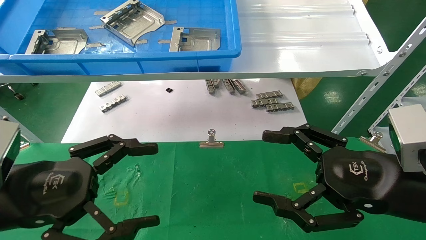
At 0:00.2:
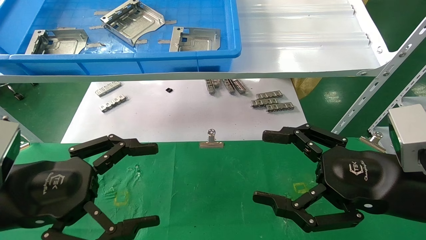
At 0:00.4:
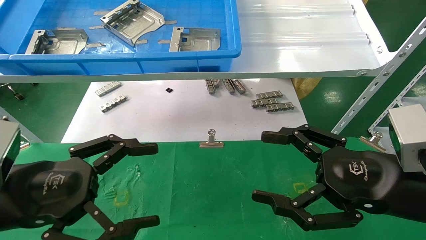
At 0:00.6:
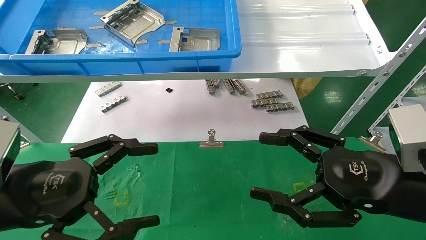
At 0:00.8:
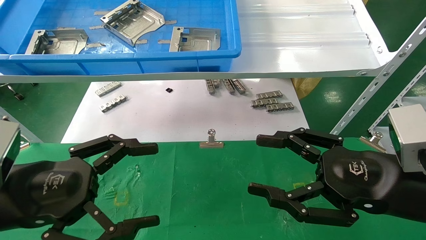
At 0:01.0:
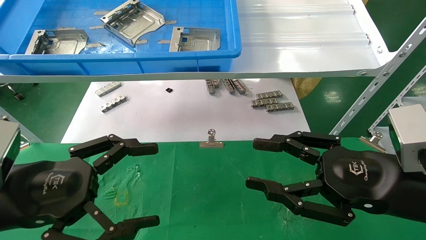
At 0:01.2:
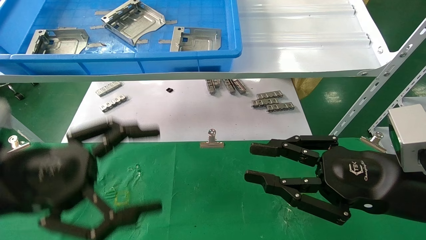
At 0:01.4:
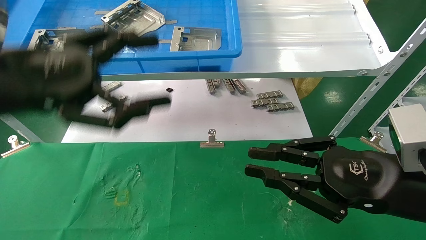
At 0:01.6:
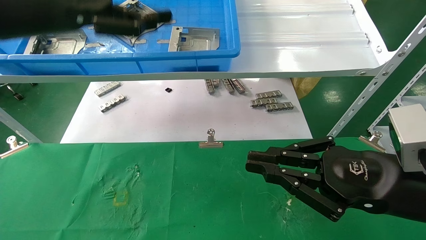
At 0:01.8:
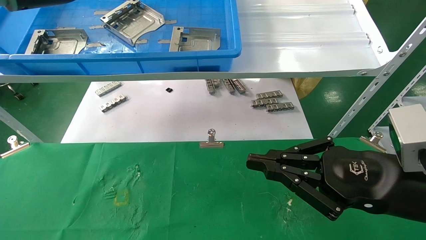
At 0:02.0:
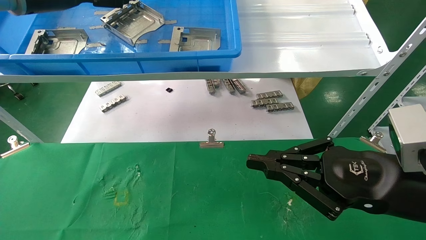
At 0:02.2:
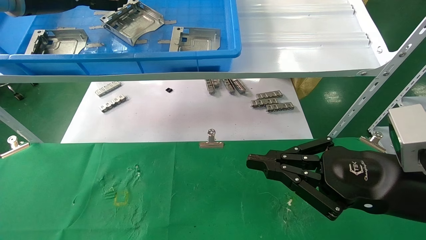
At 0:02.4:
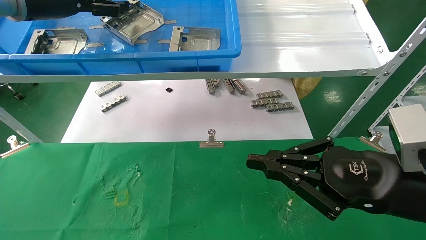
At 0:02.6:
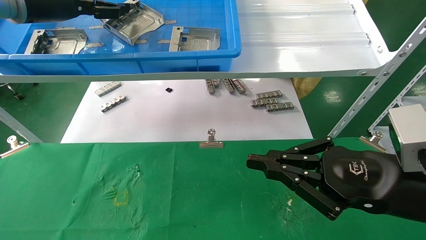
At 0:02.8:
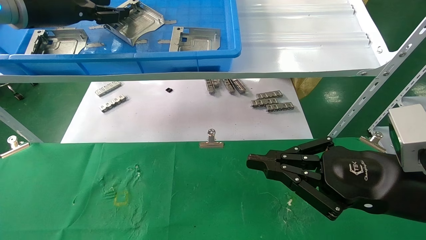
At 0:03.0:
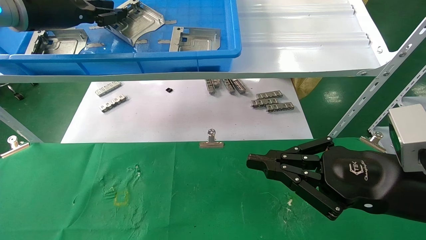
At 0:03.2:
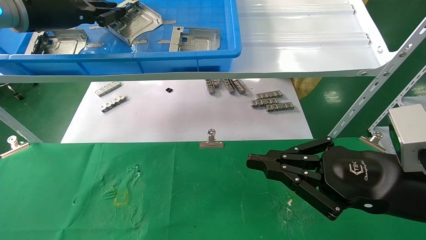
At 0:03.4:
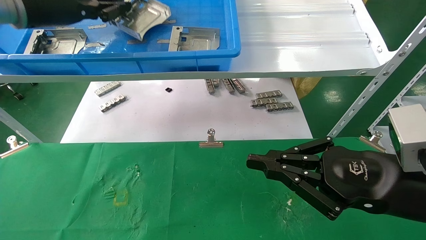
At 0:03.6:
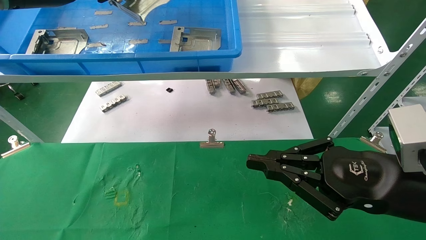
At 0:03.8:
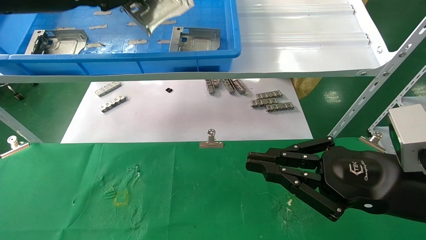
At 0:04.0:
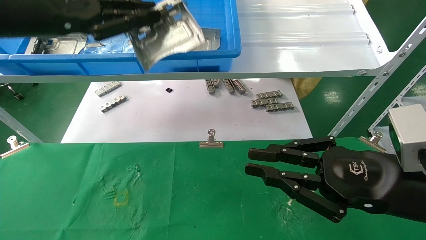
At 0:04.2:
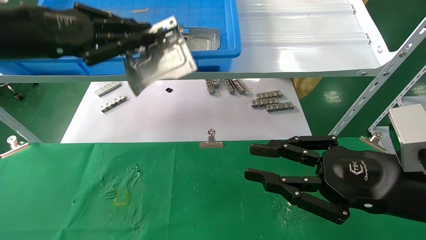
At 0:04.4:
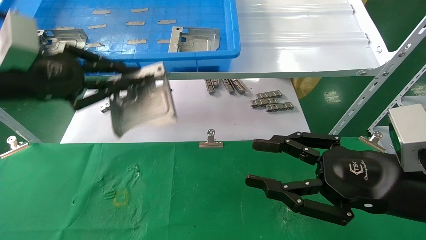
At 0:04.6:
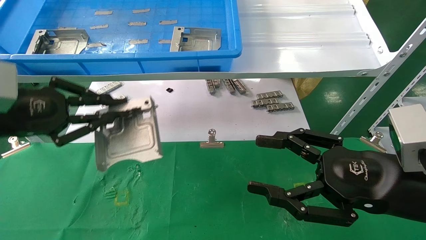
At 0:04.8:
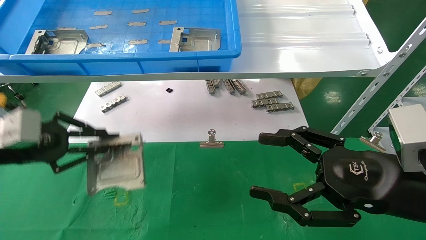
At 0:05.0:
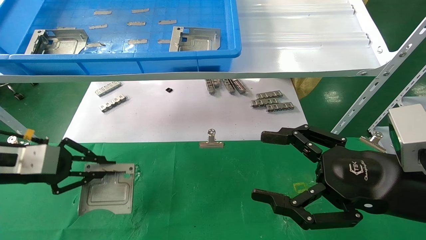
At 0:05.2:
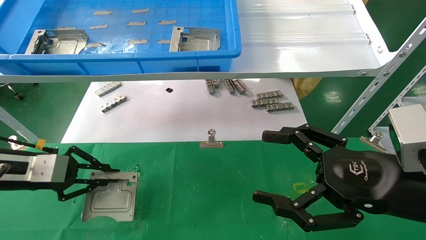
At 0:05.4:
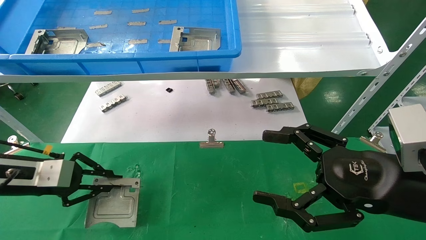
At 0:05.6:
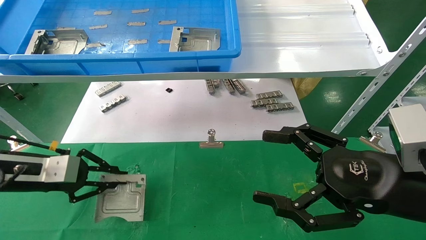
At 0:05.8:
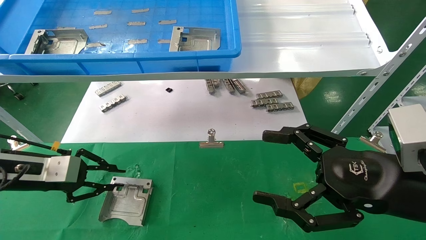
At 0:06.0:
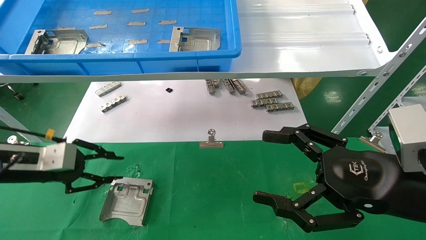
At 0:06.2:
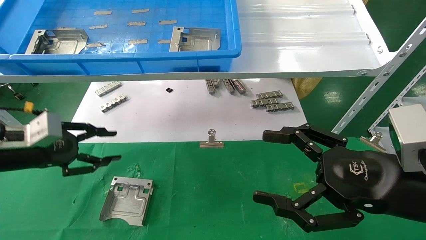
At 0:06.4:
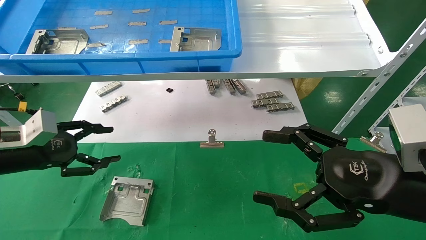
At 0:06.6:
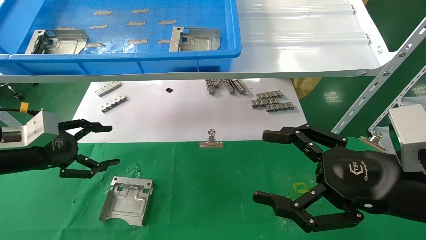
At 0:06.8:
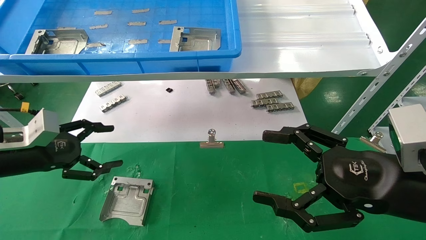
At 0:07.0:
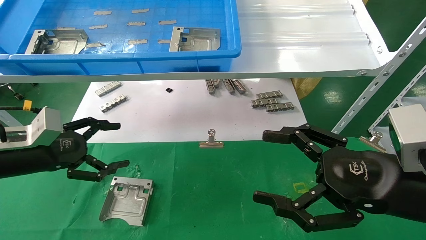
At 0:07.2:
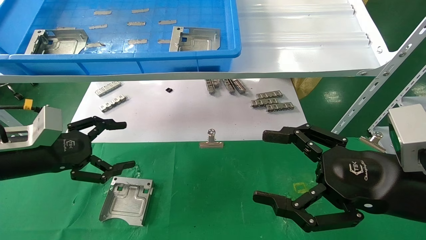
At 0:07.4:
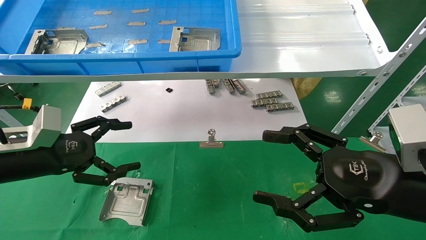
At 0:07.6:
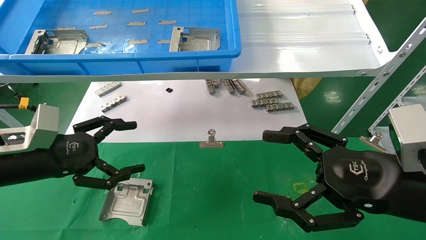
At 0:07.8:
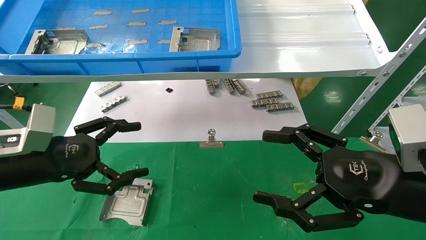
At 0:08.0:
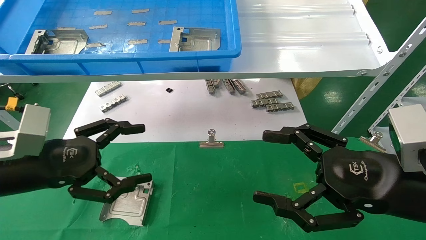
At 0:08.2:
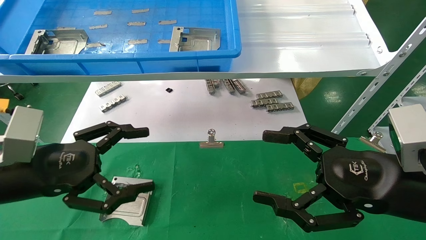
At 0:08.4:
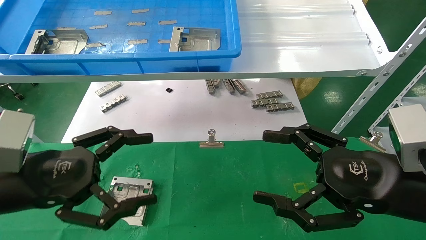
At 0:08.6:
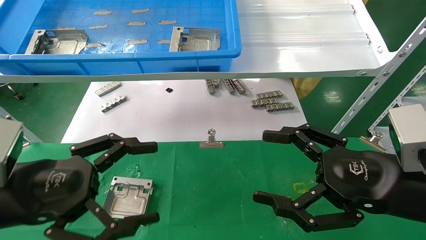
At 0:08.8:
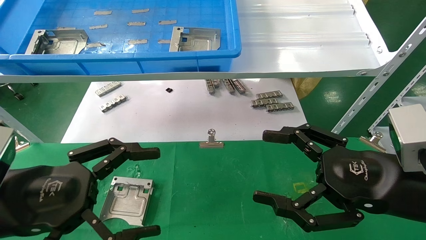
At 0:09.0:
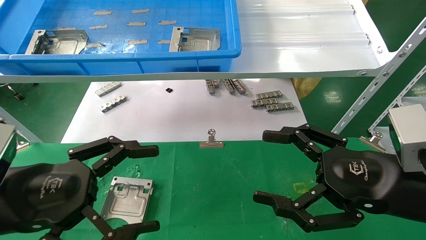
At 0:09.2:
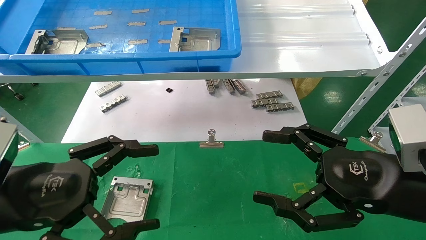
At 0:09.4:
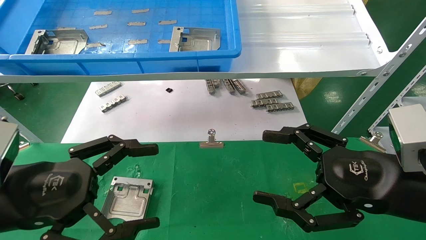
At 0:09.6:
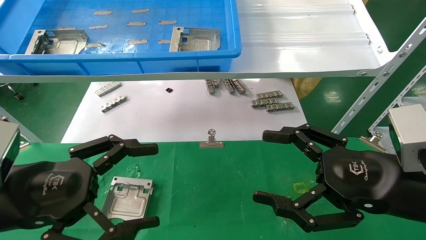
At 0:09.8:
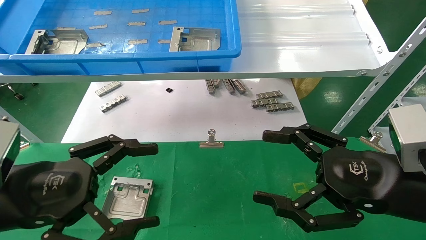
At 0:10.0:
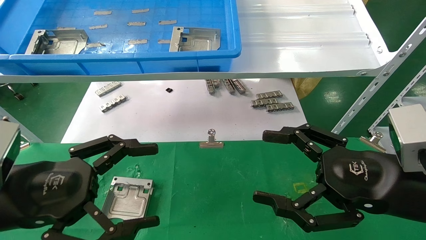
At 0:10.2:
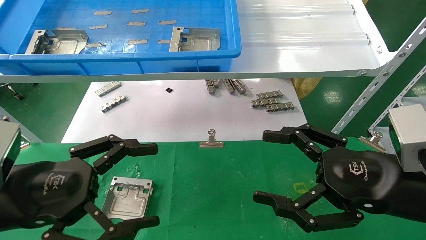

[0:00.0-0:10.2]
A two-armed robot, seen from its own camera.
Task of the whole recording: use the mechanical arm to pick up the parts and place them on the table.
Step, 0:01.4 to 0:03.2: Pick up the hard drive bracket from the feeding area.
Step, 0:03.4 to 0:05.8: Place the hard drive bracket into the box.
0:00.0 to 0:01.4: The left gripper moves upward and forward, some 15 cm; the right gripper closes.
0:01.4 to 0:03.0: The left gripper travels forward and upward by approximately 20 cm, and closes.
0:03.0 to 0:04.4: The right gripper opens its fingers; the left gripper goes about 15 cm backward and downward, and closes.
0:04.4 to 0:05.8: The right gripper opens up; the left gripper travels downward by approximately 15 cm.
0:05.8 to 0:07.2: The left gripper opens its fingers.
0:07.2 to 0:08.8: The left gripper travels backward and to the right by approximately 15 cm.
0:08.8 to 0:10.2: Neither gripper changes place.

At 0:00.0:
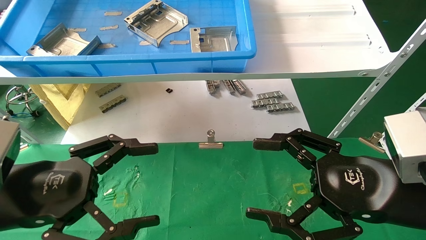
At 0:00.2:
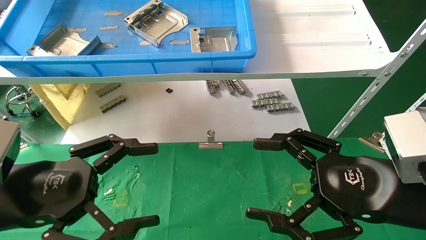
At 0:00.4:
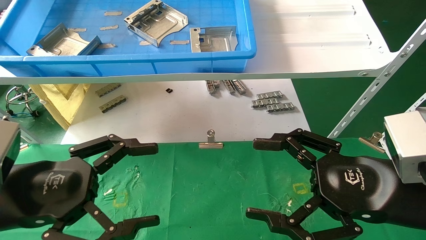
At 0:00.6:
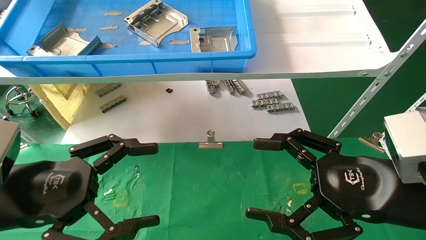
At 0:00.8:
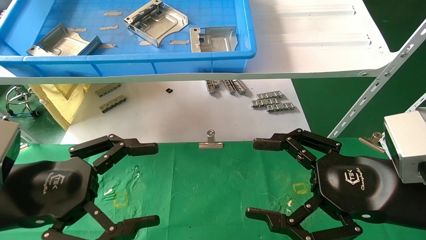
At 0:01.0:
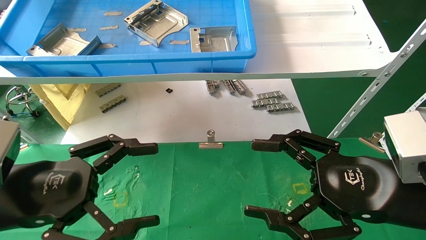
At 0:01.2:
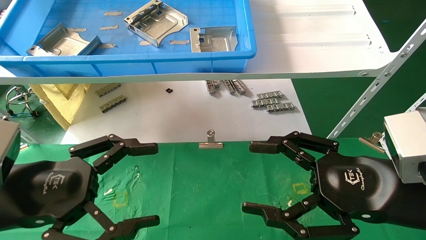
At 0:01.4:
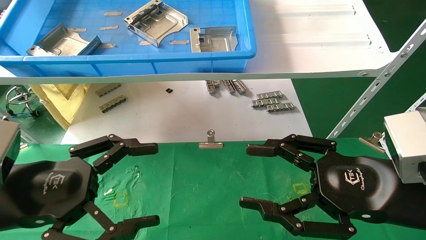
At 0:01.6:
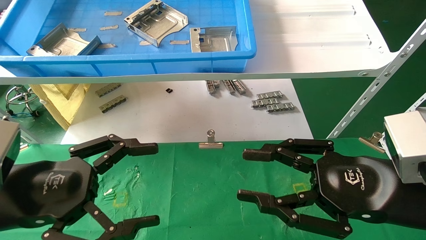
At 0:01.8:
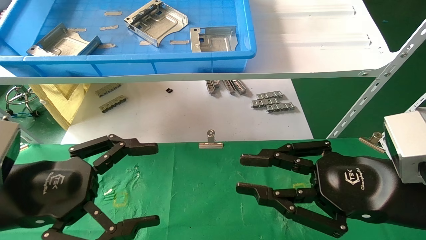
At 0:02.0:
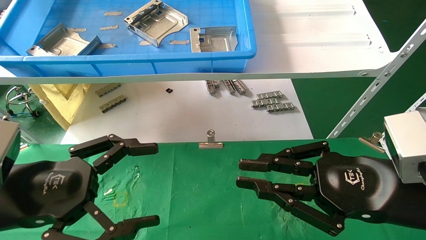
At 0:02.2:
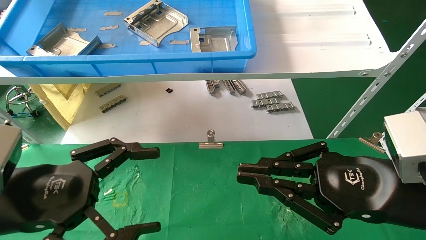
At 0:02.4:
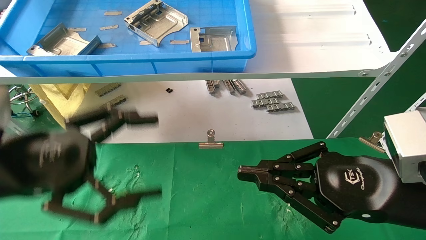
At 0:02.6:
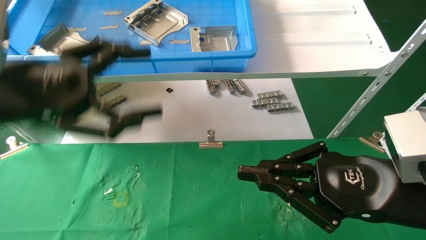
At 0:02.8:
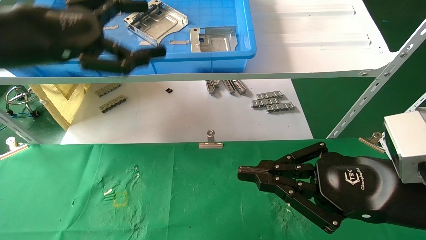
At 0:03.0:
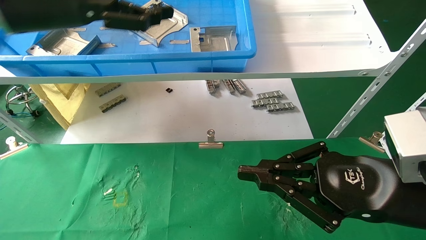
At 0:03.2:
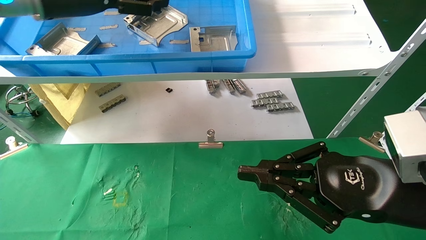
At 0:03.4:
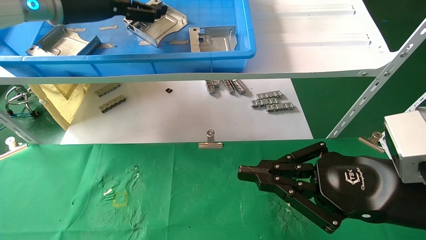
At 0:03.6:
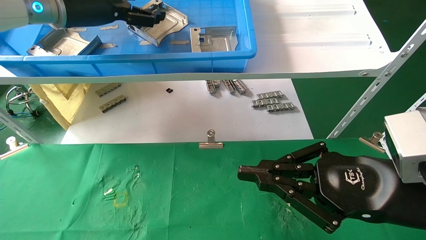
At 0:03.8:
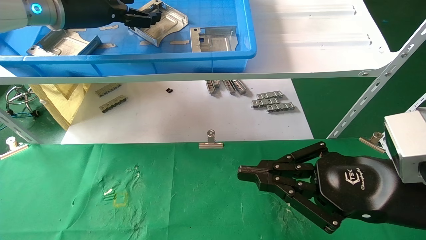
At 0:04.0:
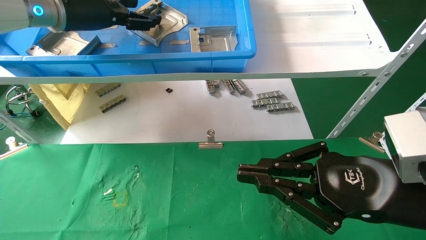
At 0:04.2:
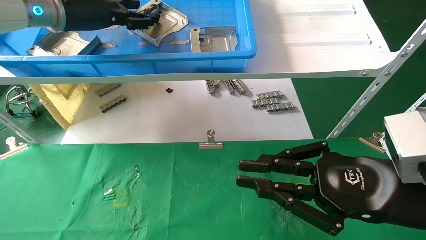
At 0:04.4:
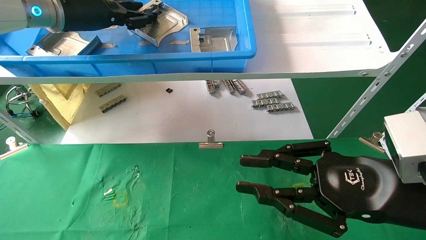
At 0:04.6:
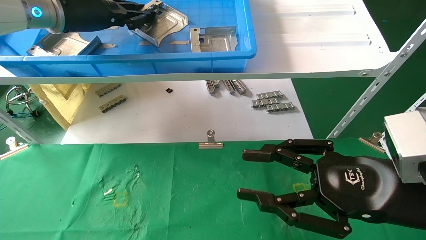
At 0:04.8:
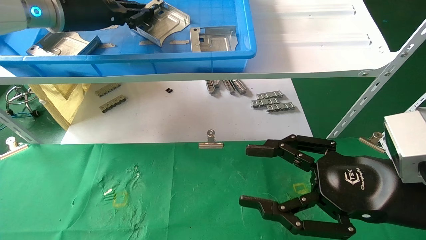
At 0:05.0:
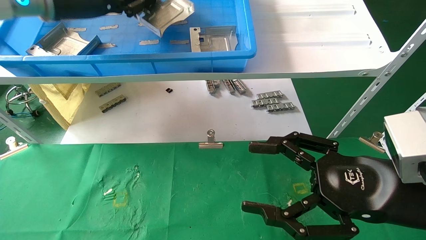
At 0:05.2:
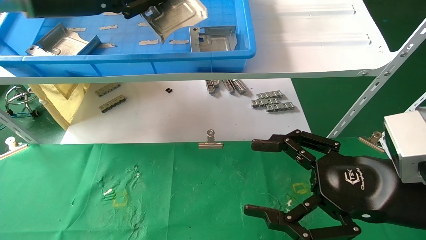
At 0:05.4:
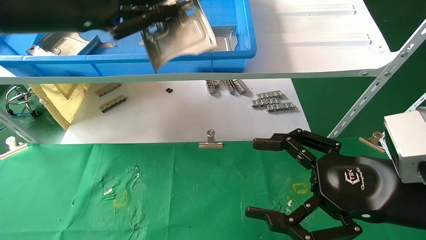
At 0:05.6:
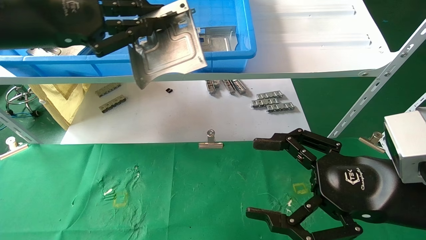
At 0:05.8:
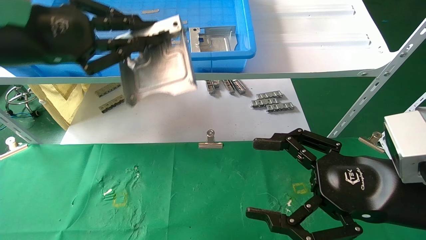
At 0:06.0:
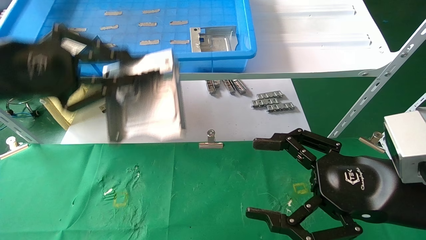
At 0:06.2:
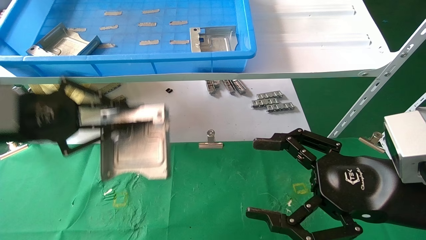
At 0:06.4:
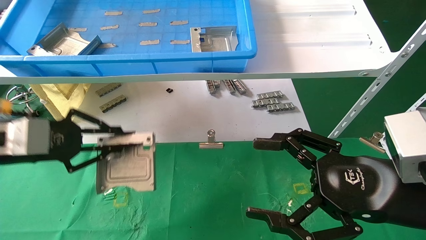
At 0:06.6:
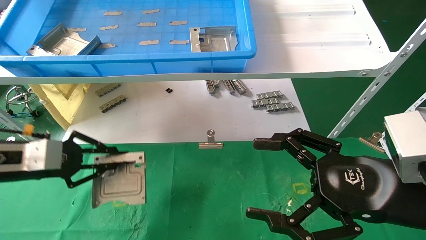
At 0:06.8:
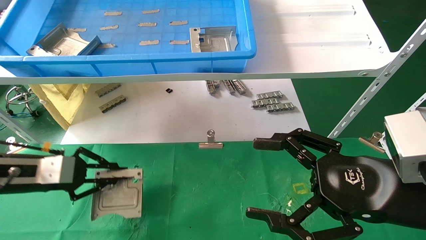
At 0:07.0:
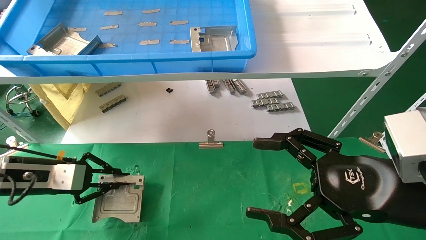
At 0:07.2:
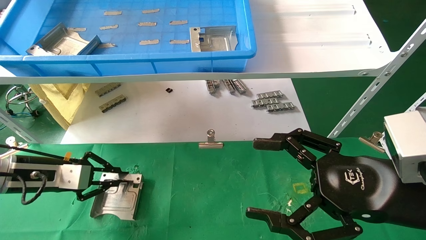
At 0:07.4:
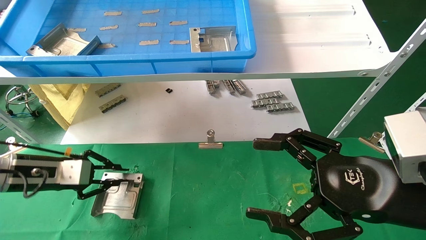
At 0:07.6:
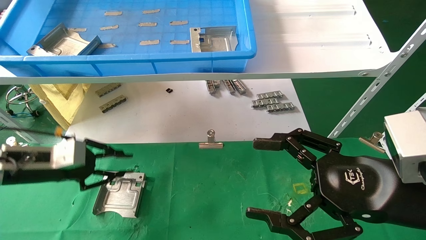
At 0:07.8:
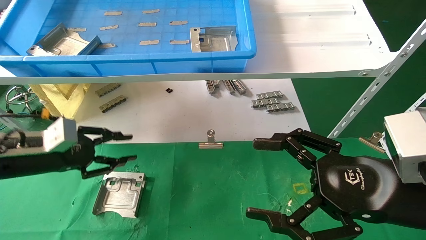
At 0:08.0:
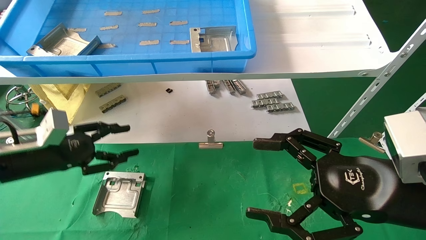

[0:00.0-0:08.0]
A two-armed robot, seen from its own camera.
Task of the whole recording: use the mechanical arm to pick up the parts and place them on the table.
Step, 0:02.6 to 0:04.8: Pick up the hard drive bracket from the feeding area.
Step, 0:05.0 to 0:07.6: Place the hard drive bracket into the box.
0:00.0 to 0:01.6: The right gripper closes its fingers.
0:01.6 to 0:03.2: The right gripper closes up; the left gripper shifts roughly 30 cm upward and forward.
0:03.2 to 0:04.8: The right gripper opens, while the left gripper closes.
0:04.8 to 0:06.4: The left gripper heads downward, backward and to the left, covering some 25 cm, while the right gripper opens its fingers.
0:06.4 to 0:08.0: The left gripper shifts about 10 cm downward, and opens.
